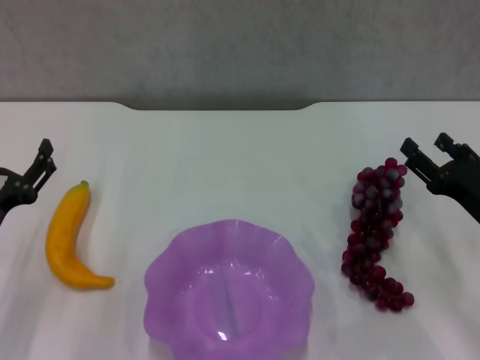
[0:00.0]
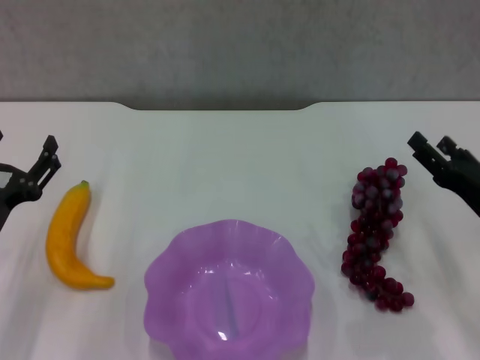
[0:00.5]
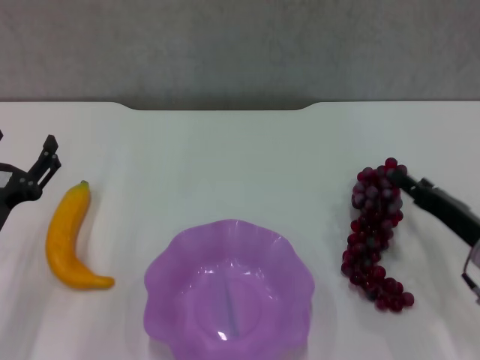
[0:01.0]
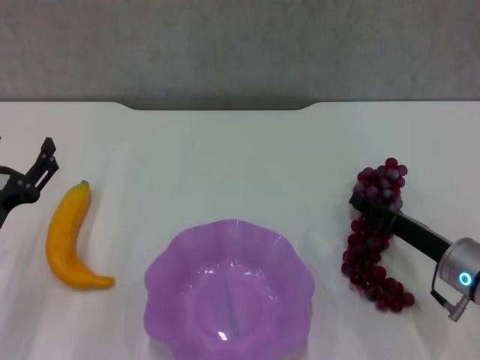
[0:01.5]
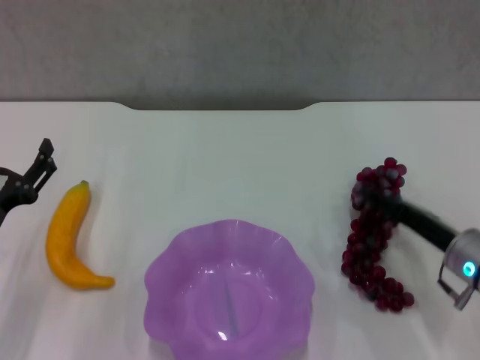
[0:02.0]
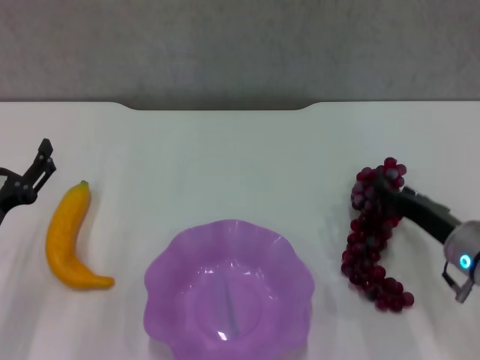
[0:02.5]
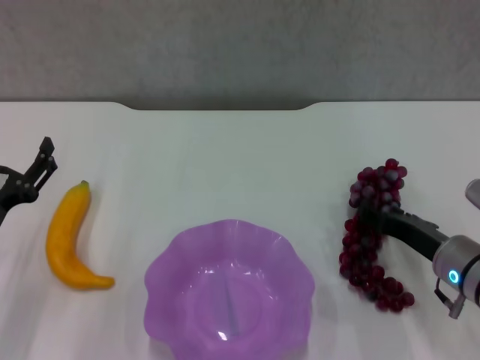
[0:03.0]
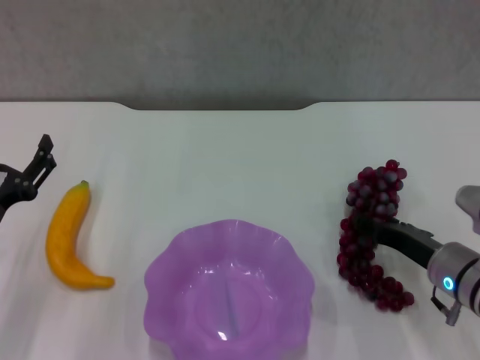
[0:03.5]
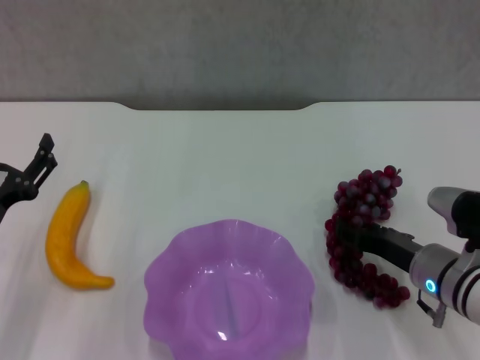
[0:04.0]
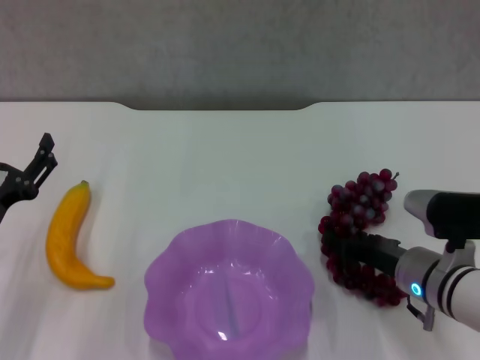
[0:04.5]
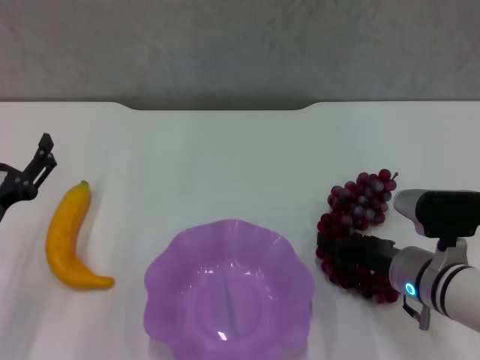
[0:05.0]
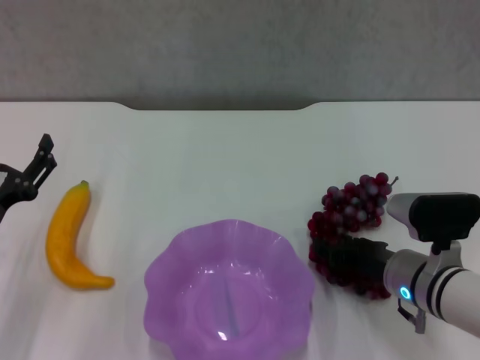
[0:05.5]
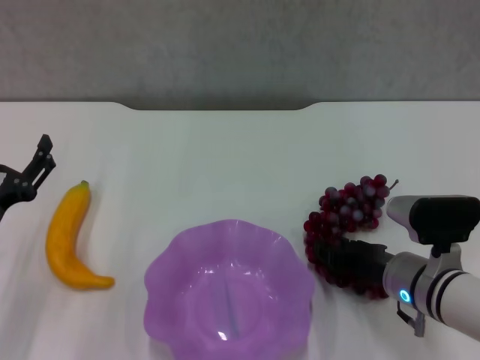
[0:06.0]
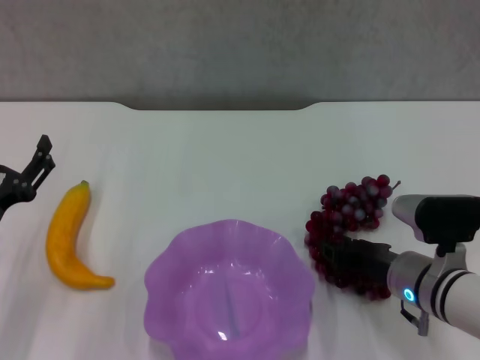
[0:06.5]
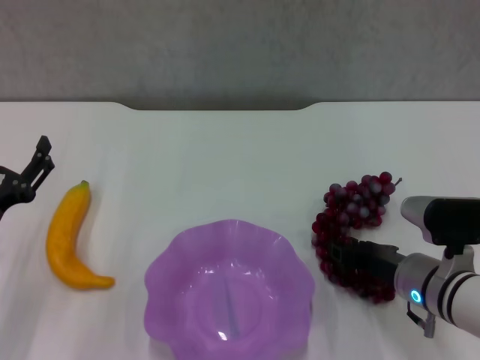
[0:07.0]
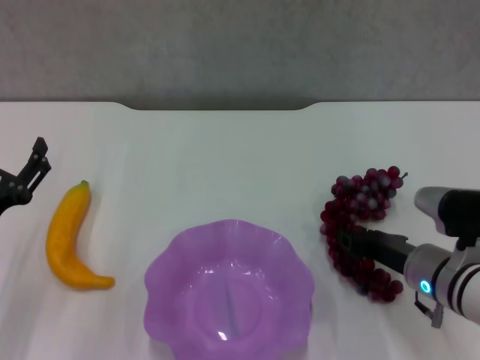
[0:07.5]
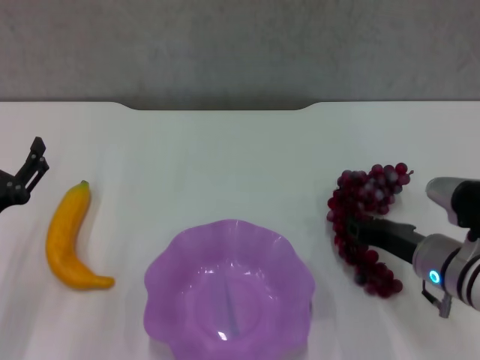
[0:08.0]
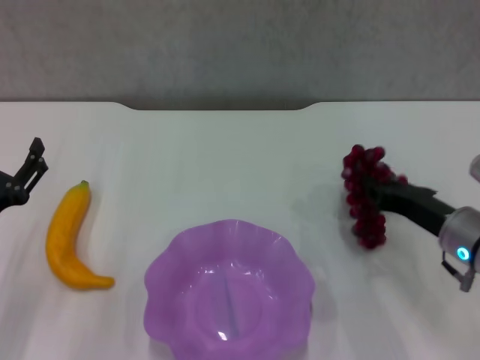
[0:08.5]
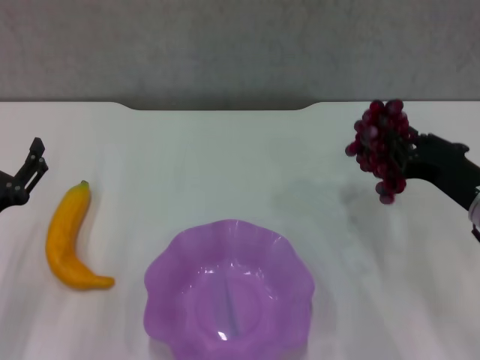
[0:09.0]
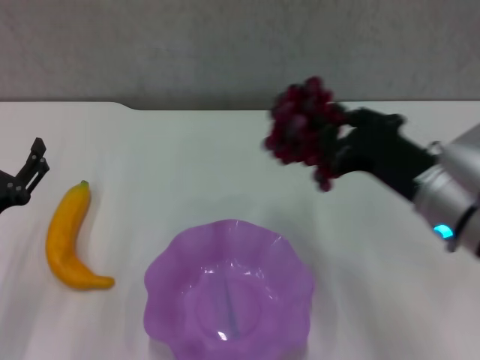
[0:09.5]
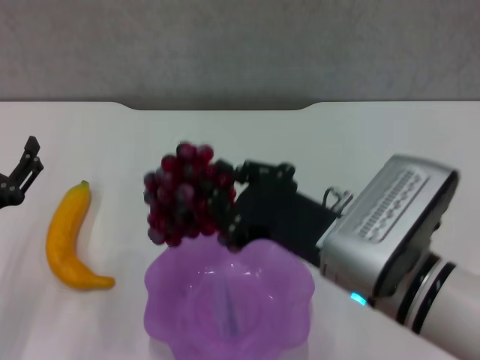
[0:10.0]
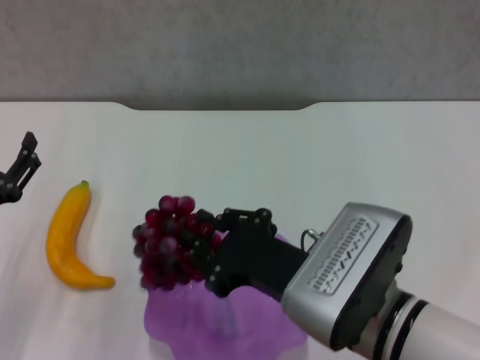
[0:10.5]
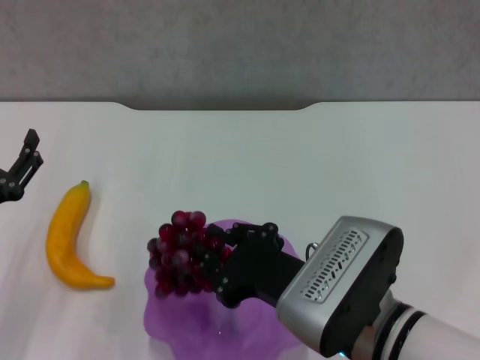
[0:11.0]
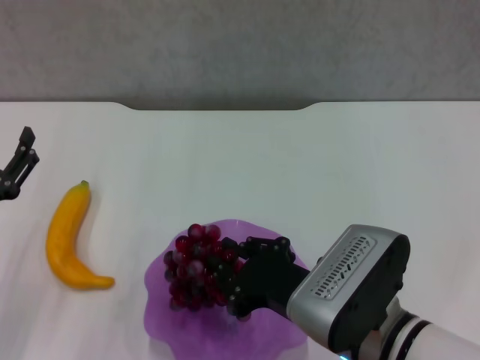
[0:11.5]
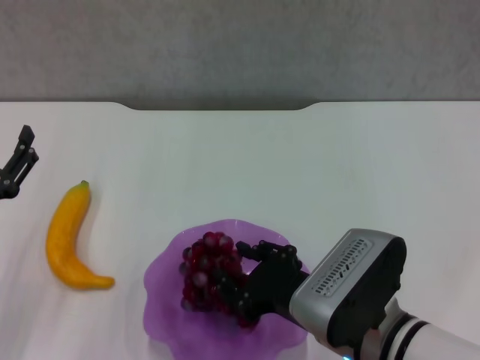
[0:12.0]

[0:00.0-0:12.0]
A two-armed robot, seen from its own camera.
Step, 0:00.0 to 0:06.0: Grasp the grape with right gripper.
0:02.0 to 0:04.0: The grippers move only a little.
0:04.0 to 0:08.0: The grippers move only a little.
0:08.0 to 0:10.0: The right gripper shifts some 20 cm to the left, upward and backward.
0:10.0 to 0:12.0: The right gripper goes about 5 cm downward.

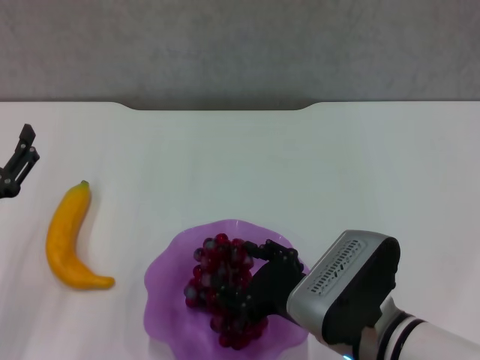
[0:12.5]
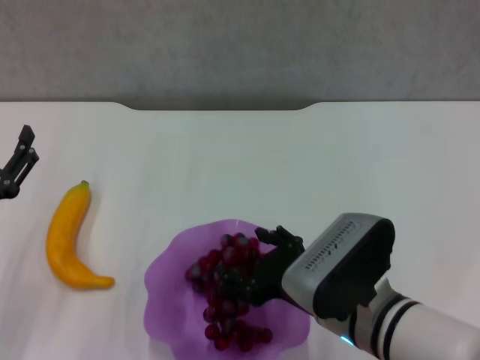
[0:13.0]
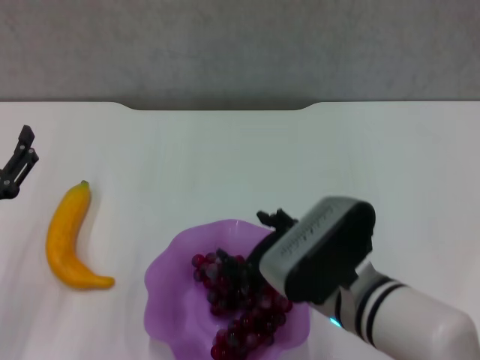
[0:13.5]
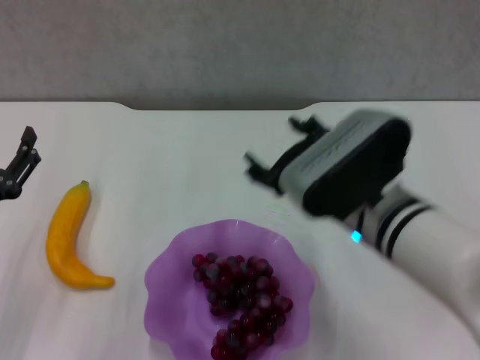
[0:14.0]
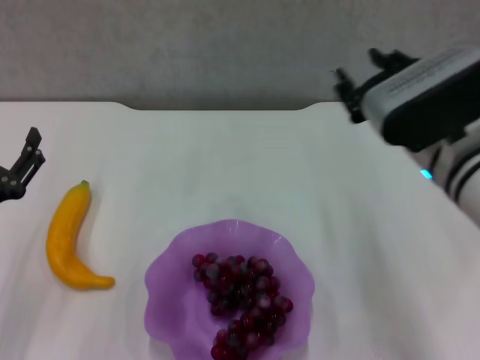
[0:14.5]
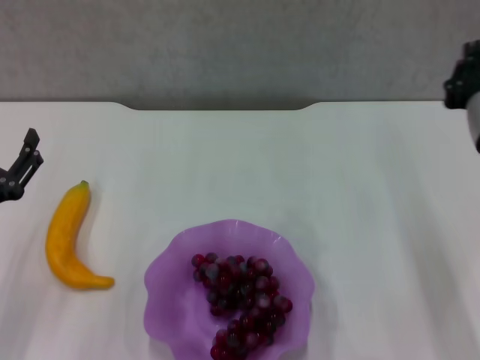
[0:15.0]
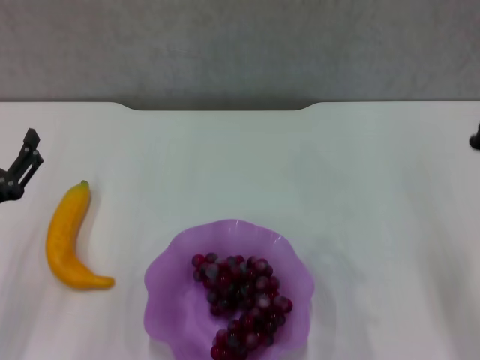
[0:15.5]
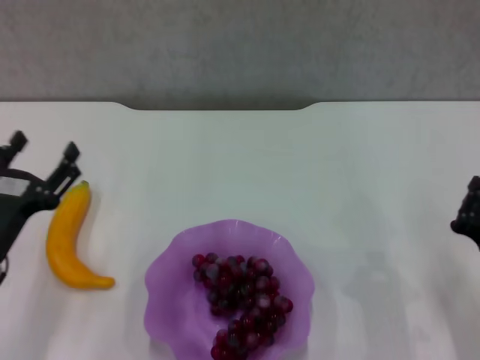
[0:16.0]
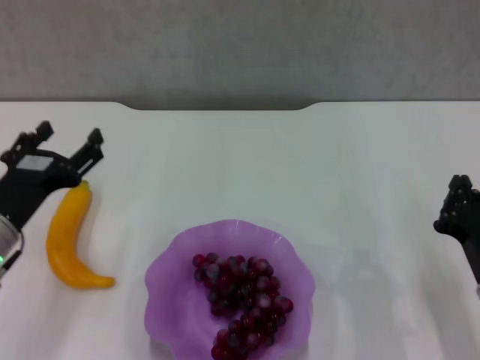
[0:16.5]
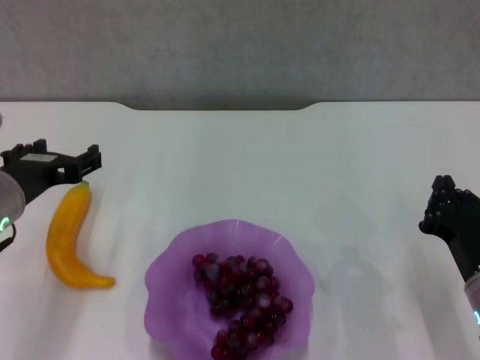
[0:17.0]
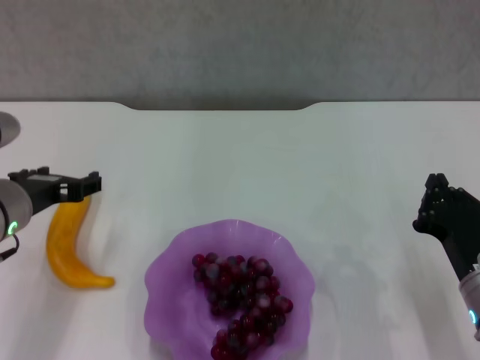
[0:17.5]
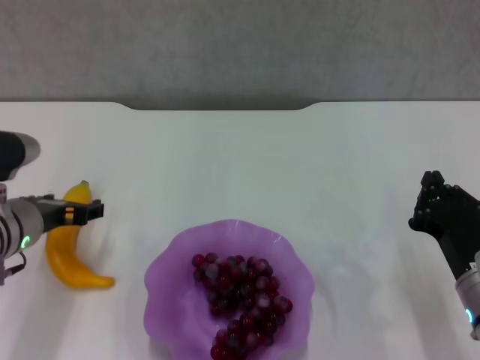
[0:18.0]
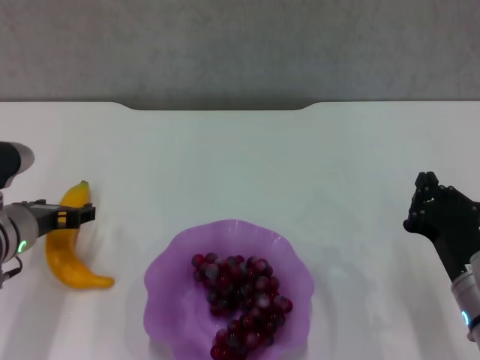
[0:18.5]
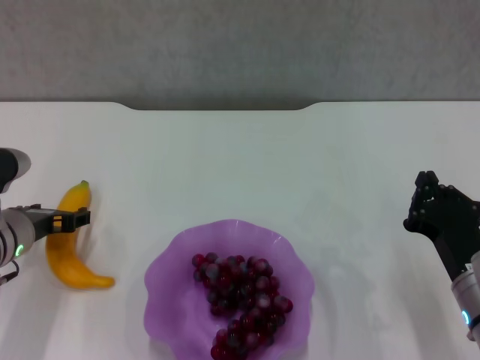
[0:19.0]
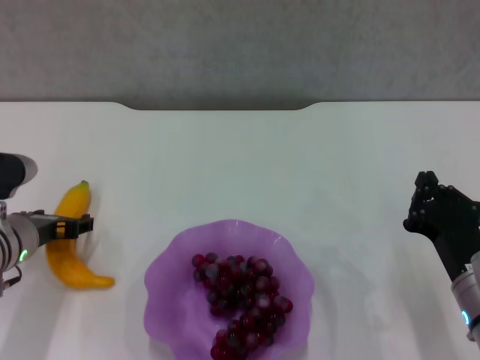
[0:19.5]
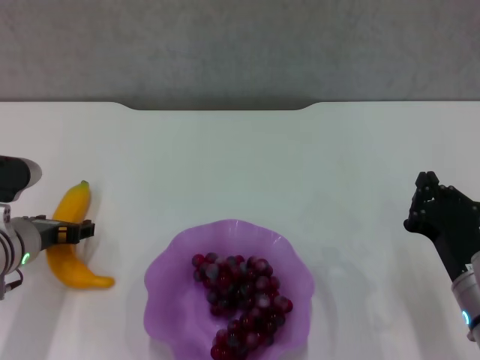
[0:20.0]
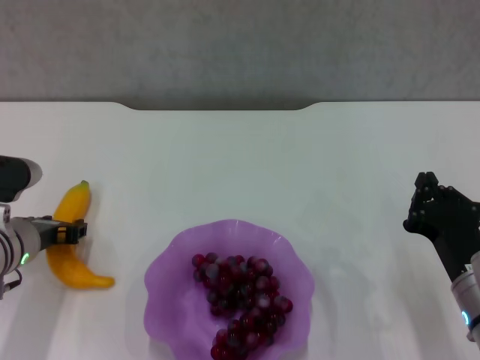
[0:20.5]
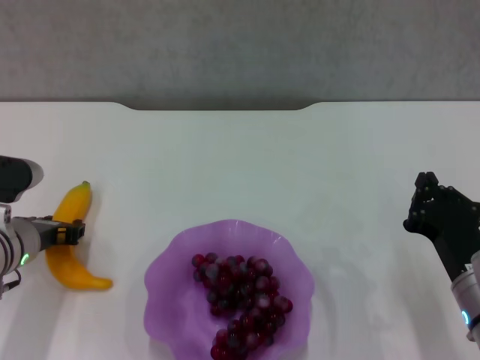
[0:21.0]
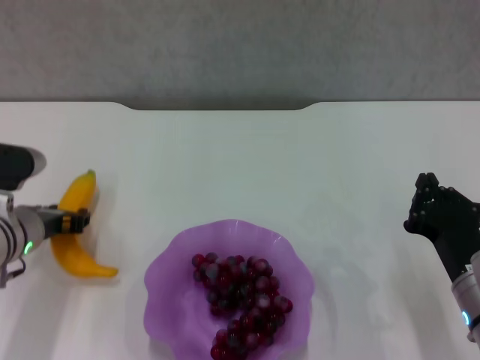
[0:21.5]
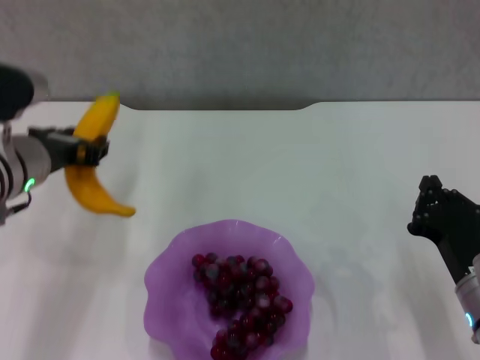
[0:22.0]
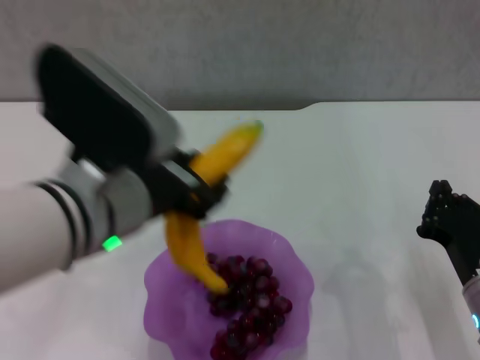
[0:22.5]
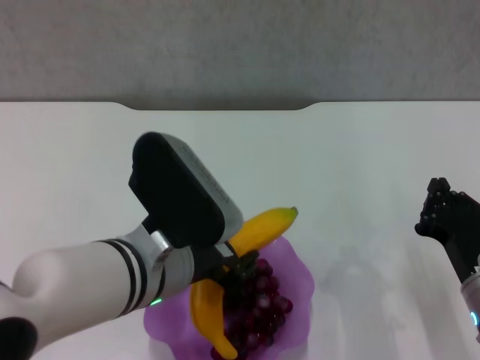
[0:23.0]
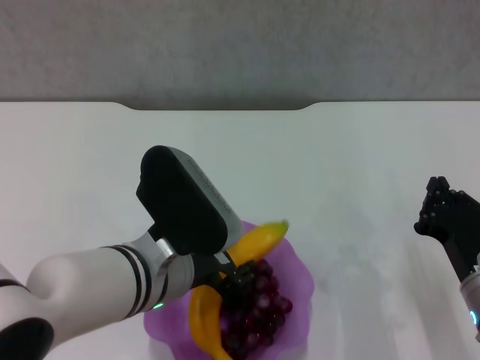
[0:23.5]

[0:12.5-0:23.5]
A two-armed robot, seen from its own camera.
Step, 0:14.0 to 0:21.0: Grasp the banana with left gripper.
0:12.5 to 0:14.5: The right gripper goes about 15 cm upward, forward and to the right.
0:14.5 to 0:16.0: The right gripper goes some 20 cm downward, backward and to the right, and closes up.
0:16.0 to 0:18.0: The left gripper heads forward, covering roughly 5 cm.
0:18.0 to 0:20.0: The grippers make only small movements.
0:20.0 to 0:21.5: The left gripper closes its fingers.
0:21.5 to 0:23.5: The left gripper heads to the right, backward and upward, covering approximately 20 cm.

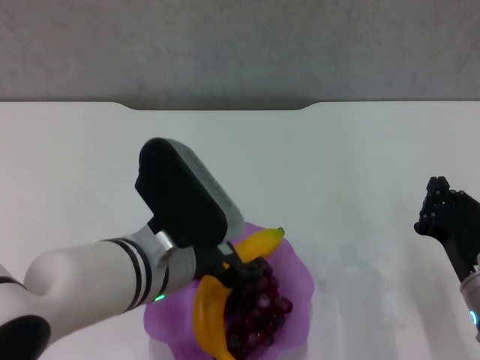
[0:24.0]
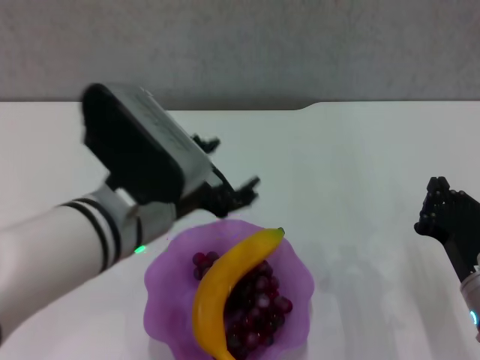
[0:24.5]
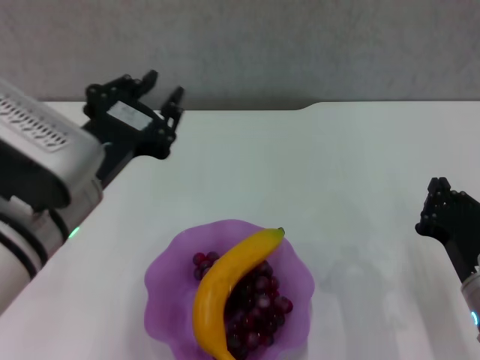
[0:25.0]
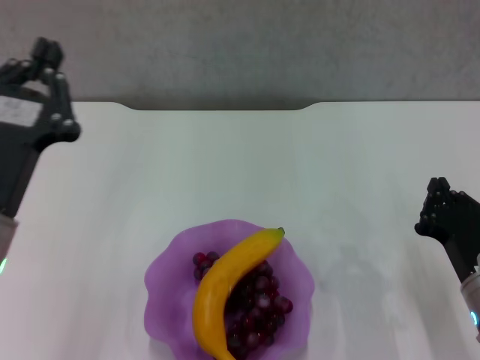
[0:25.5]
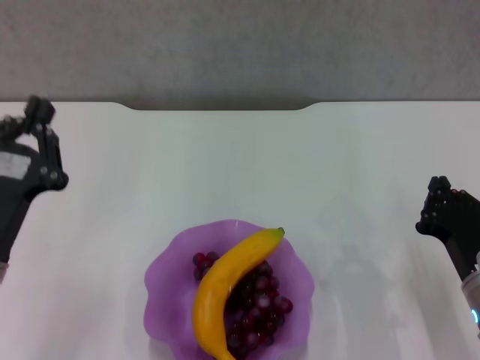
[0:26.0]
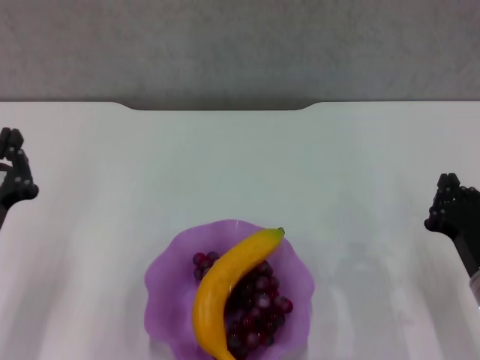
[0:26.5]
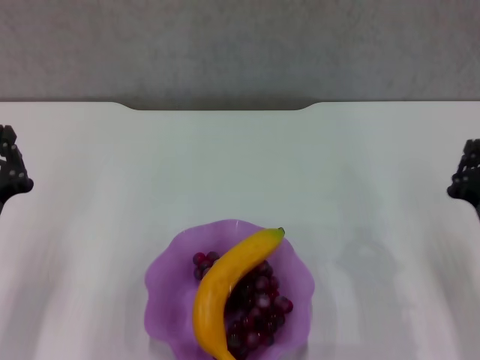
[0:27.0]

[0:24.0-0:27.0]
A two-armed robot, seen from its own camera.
0:24.0 to 0:25.5: The left gripper is displaced to the left by approximately 10 cm, and closes its fingers.
0:25.5 to 0:27.0: The left gripper travels downward and to the left by approximately 10 cm.
